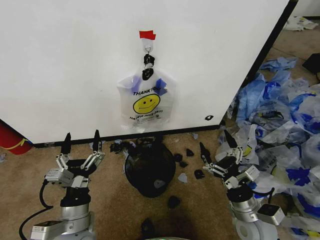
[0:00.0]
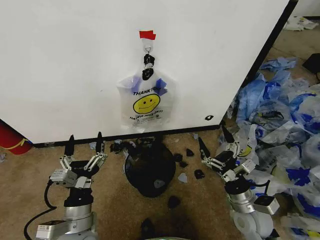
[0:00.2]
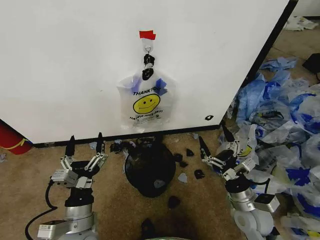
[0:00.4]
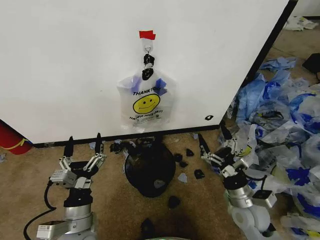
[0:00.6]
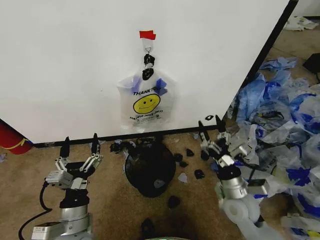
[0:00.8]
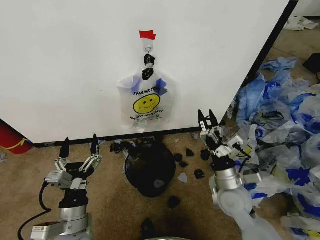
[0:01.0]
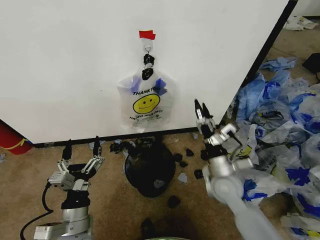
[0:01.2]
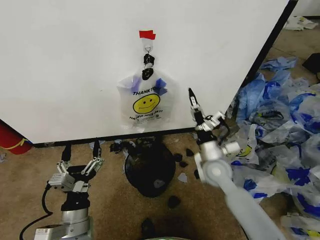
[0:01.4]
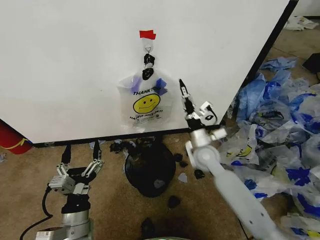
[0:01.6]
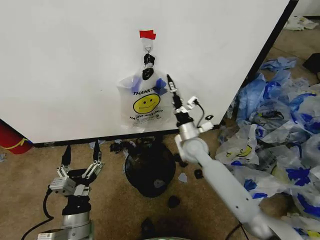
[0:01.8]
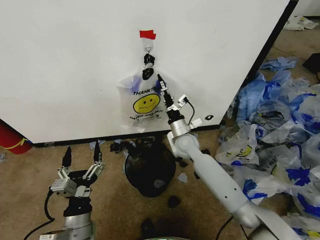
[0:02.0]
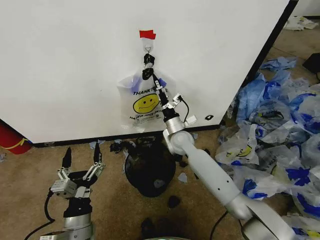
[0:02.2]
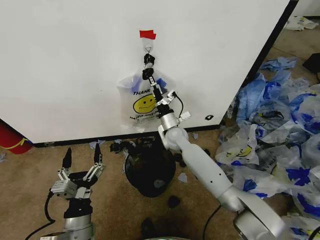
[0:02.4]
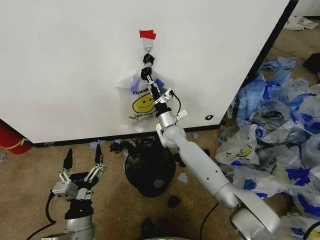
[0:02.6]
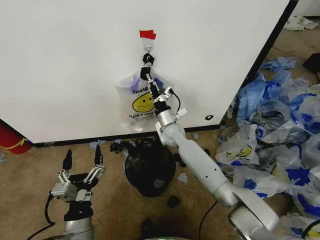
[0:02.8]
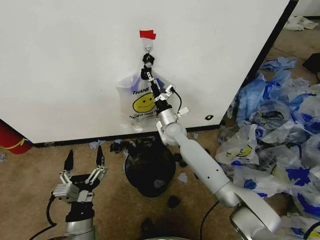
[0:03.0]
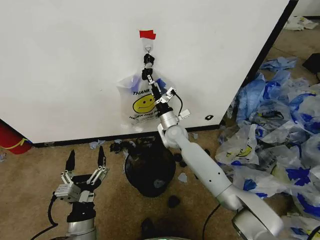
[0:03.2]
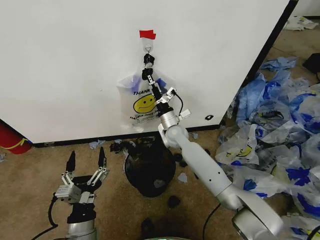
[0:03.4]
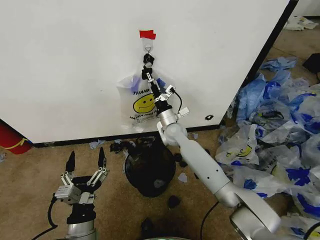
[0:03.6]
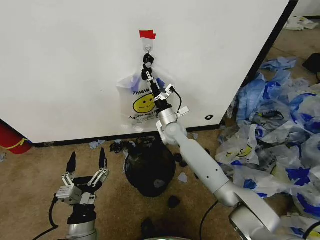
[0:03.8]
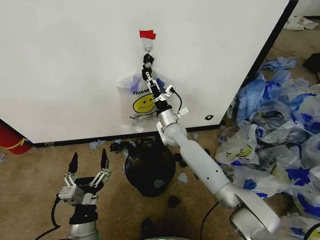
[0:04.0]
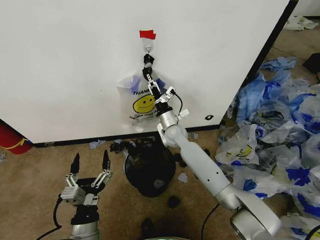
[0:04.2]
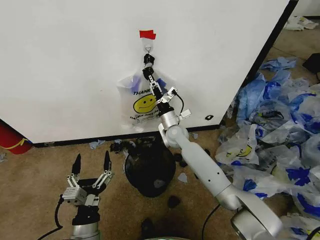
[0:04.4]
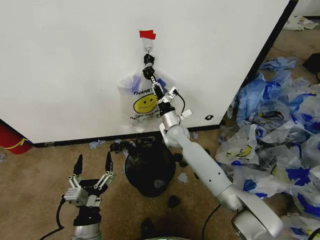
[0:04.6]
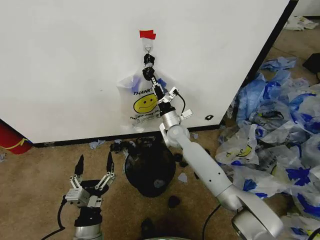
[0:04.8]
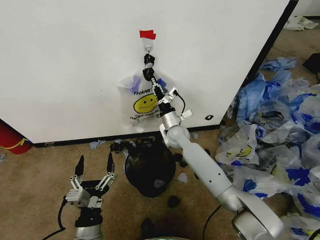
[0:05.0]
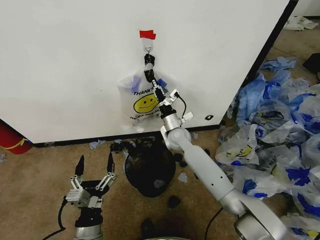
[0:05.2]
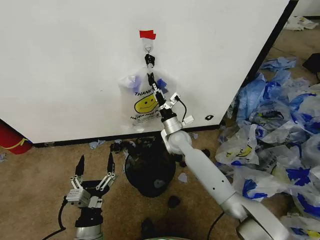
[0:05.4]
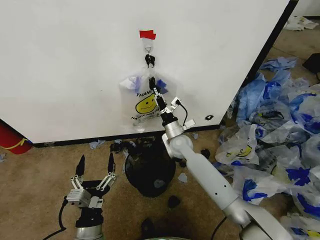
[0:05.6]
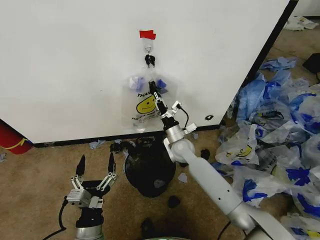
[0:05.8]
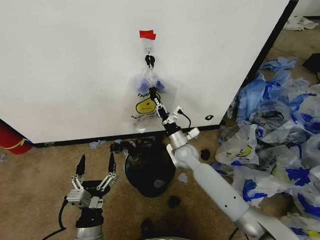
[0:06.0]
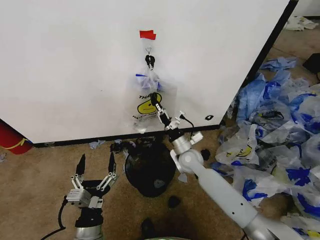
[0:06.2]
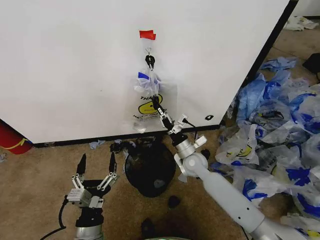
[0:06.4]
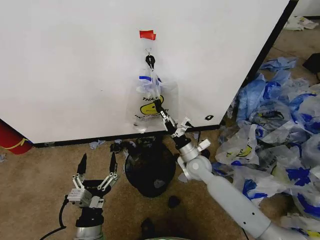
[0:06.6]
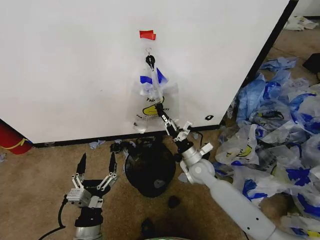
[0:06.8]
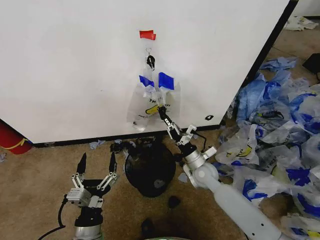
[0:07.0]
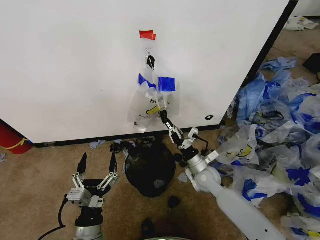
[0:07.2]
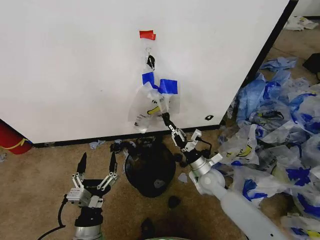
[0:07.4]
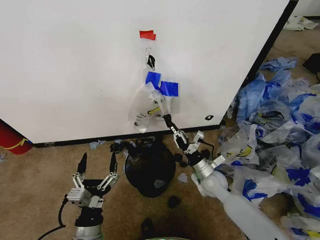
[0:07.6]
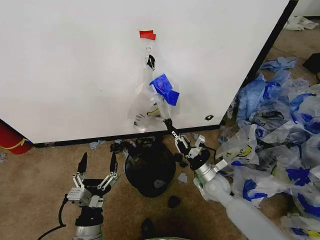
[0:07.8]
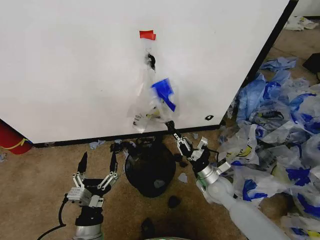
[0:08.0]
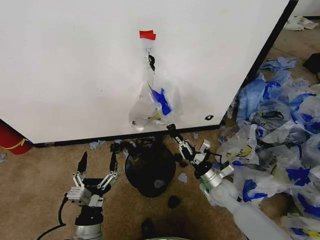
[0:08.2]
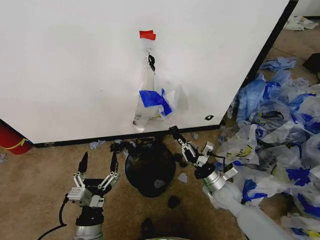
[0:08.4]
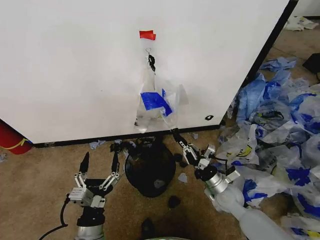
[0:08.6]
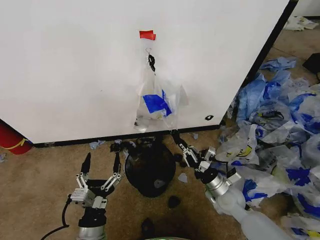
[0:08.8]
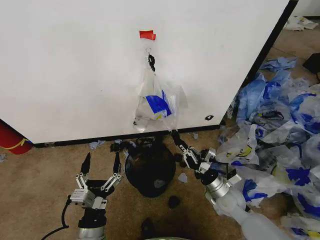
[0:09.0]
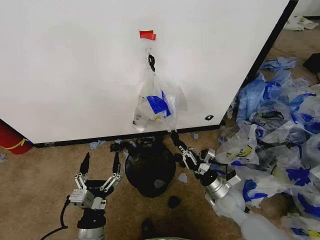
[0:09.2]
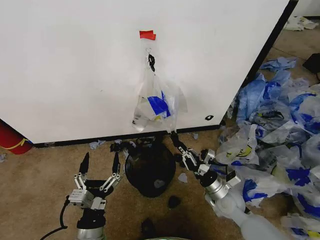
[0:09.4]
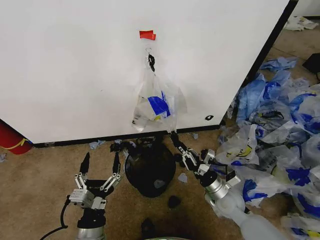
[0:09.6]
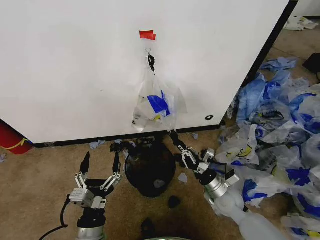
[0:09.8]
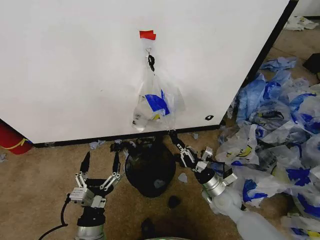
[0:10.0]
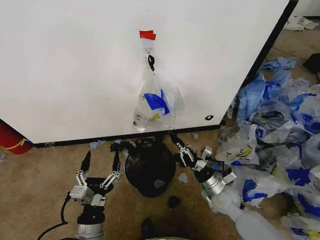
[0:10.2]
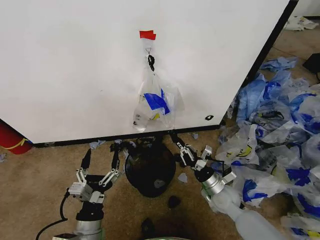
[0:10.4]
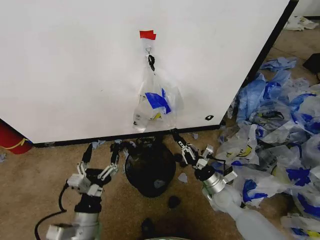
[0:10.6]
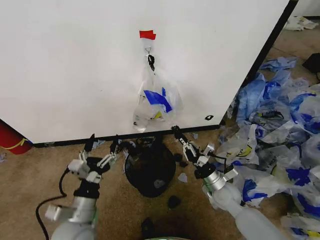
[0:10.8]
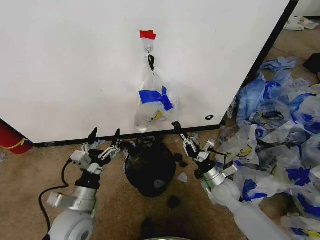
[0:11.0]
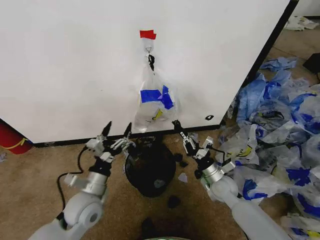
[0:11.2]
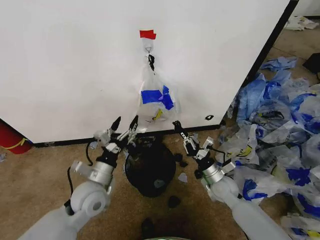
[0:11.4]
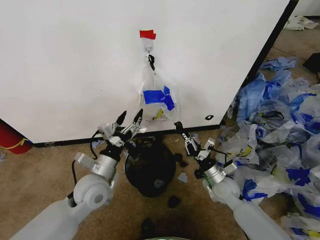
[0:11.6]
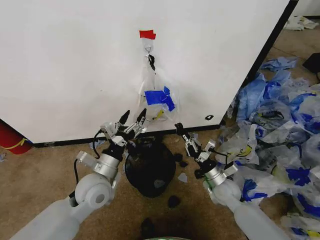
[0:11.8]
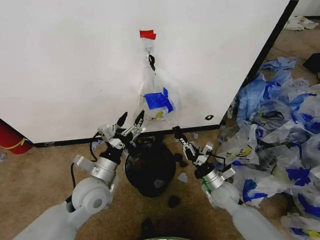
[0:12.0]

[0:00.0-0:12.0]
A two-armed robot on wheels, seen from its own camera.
Task of the whole recording: Pick up the garbage bag from the wall and place it over the trash bin.
0:01.6 to 0:03.0: The right gripper goes some 15 cm forward and to the left.
0:03.0 to 0:04.4: The right gripper closes its fingers.
0:04.4 to 0:06.0: The right gripper shifts about 5 cm backward.
0:06.0 to 0:07.6: The right gripper moves backward and to the right, roughly 15 cm.
0:07.6 to 0:09.0: The right gripper shifts about 5 cm backward.
0:09.0 to 0:10.4: There are only small adjustments of the grippers.
0:10.4 to 0:12.0: The left gripper moves forward and upward, some 15 cm.

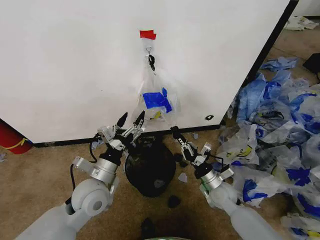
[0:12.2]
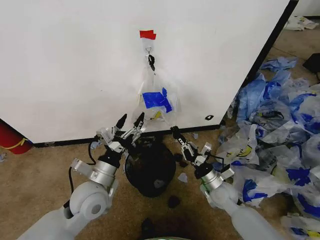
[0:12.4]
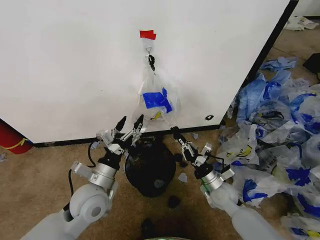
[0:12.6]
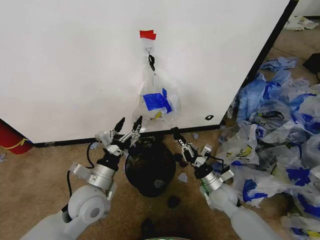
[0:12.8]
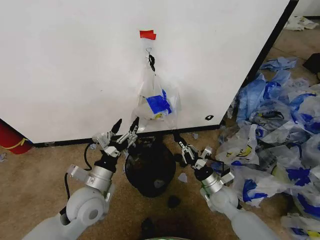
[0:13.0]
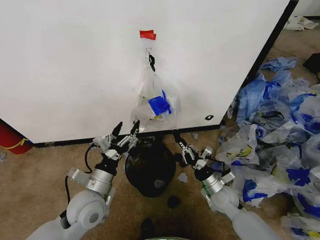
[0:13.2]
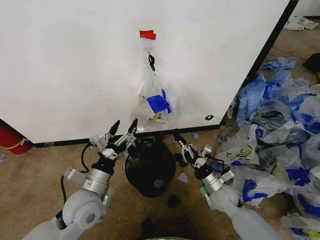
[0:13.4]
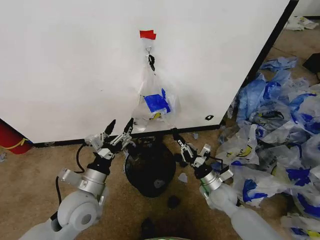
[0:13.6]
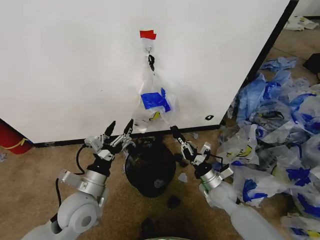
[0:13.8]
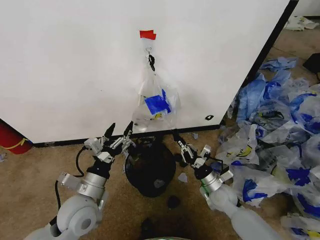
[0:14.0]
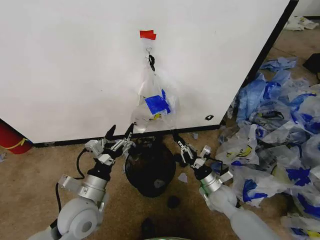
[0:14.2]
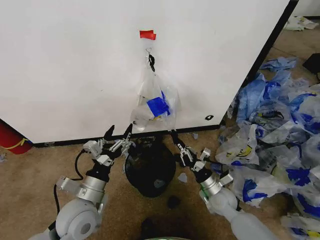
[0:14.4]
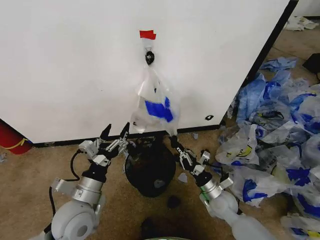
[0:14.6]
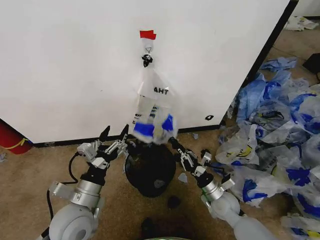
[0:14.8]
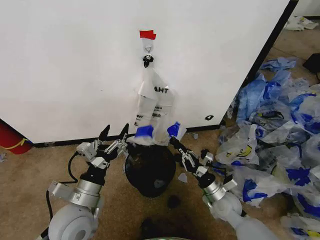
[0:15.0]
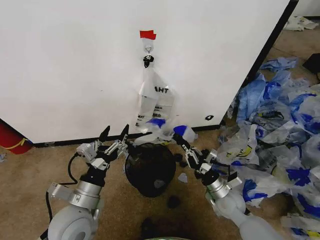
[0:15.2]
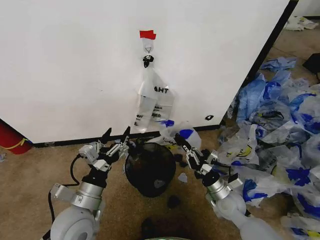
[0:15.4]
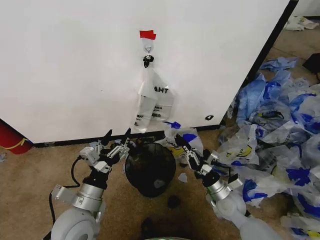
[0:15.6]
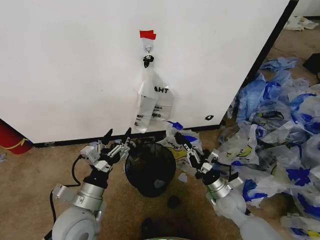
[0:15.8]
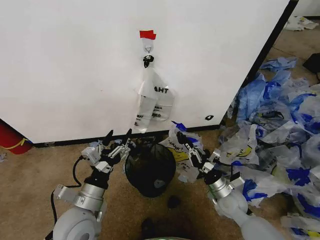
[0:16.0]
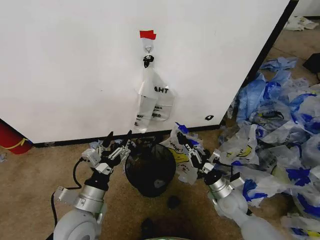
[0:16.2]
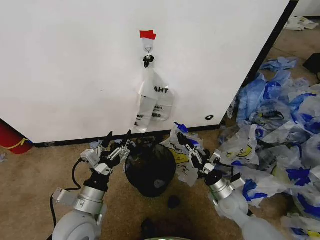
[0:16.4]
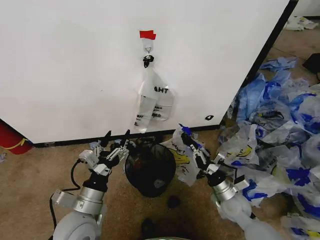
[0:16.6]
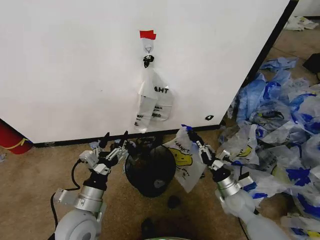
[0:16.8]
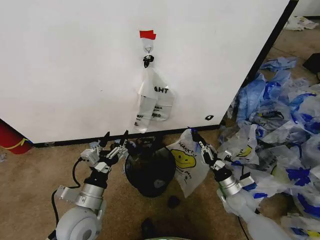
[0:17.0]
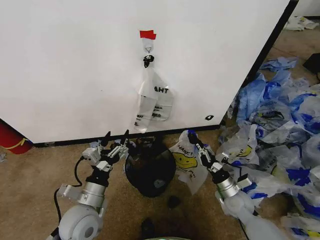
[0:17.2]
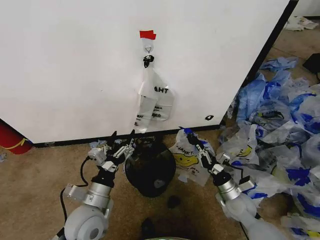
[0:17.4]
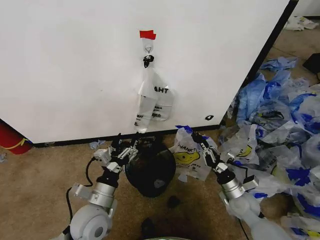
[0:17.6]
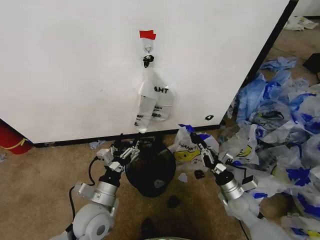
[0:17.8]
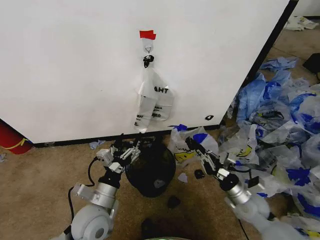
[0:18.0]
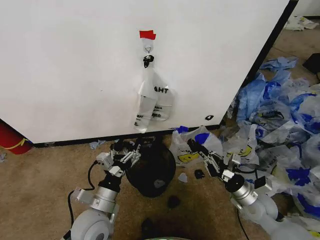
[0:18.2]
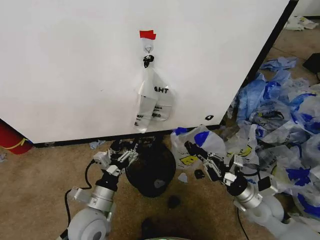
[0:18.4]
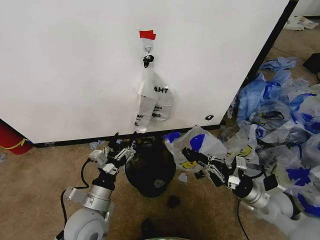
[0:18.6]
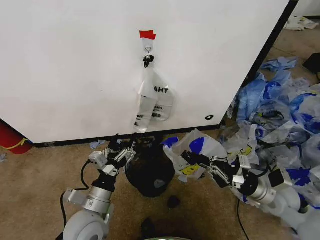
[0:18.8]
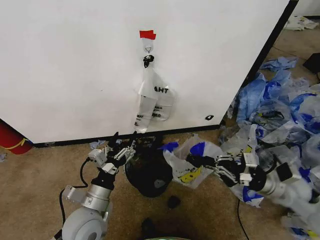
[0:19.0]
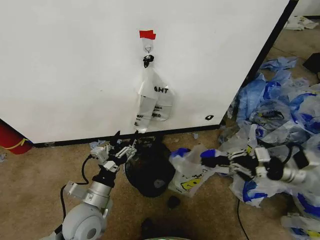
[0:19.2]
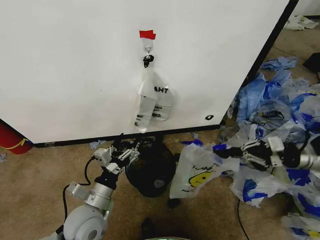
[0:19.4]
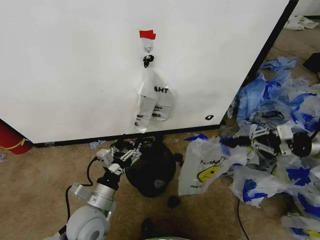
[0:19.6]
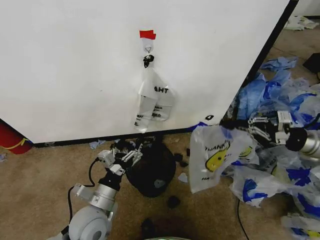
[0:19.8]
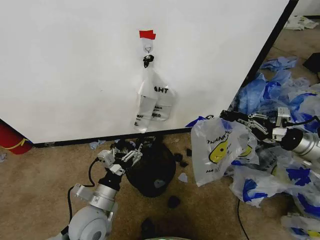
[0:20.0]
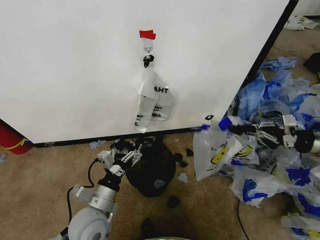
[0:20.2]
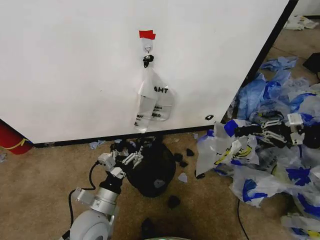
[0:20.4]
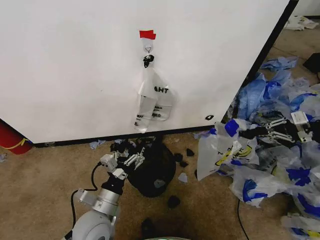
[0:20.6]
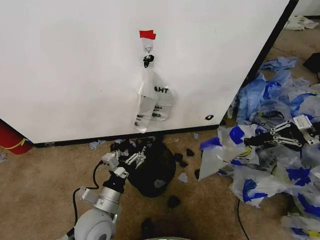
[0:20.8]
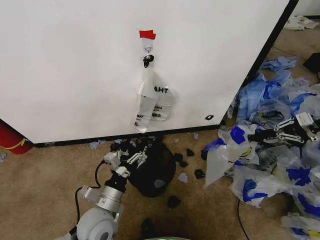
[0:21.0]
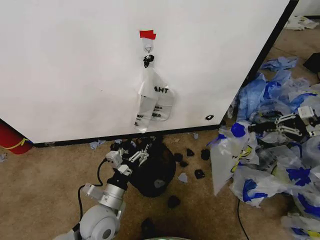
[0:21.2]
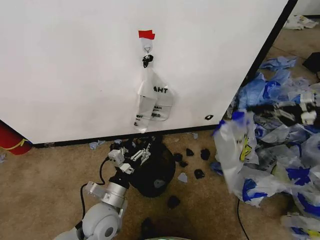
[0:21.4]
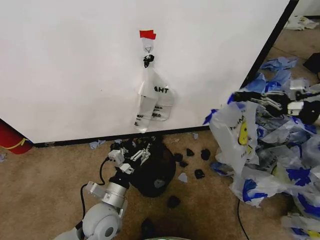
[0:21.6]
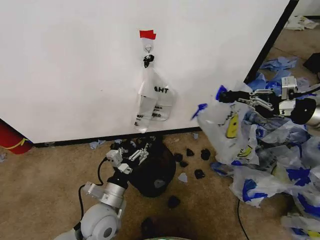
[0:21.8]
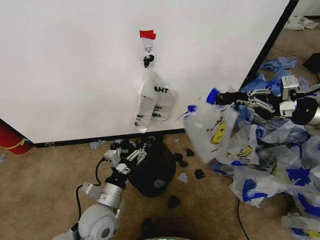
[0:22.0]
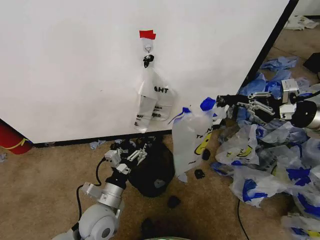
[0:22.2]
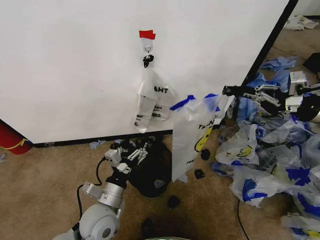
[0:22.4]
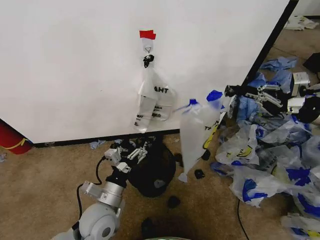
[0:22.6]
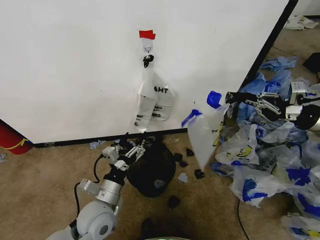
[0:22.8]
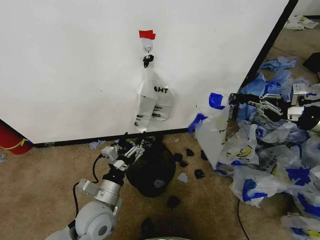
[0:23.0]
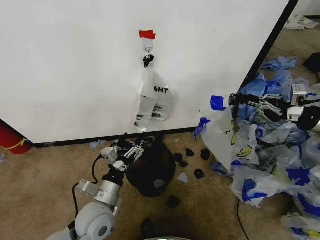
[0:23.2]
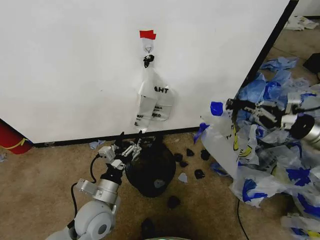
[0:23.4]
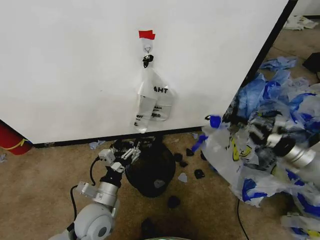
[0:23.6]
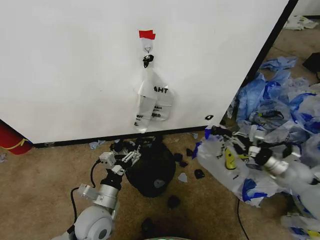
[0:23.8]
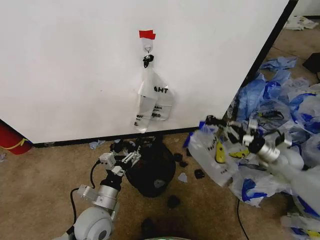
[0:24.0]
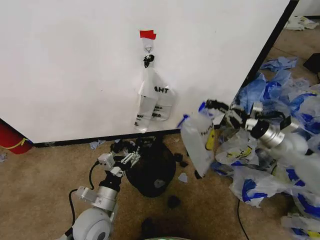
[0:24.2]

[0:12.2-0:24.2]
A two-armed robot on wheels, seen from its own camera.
Task of the whole recording: Pick up the garbage bag from the wall and place it over the trash bin.
0:12.2 to 0:13.8: The grippers move only a little.
0:13.8 to 0:16.6: The grippers move only a little.
0:16.6 to 0:18.2: The right gripper is displaced to the right by roughly 5 cm.
0:18.2 to 0:19.8: The right gripper heads upward and to the right, covering approximately 25 cm.
0:19.8 to 0:21.2: The right gripper is displaced to the right and upward by about 10 cm.
0:21.2 to 0:22.6: The right gripper moves to the left, some 10 cm.
0:22.6 to 0:24.2: The right gripper heads downward and forward, covering about 15 cm.
